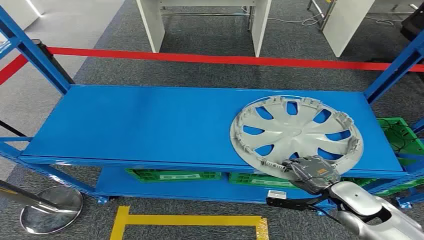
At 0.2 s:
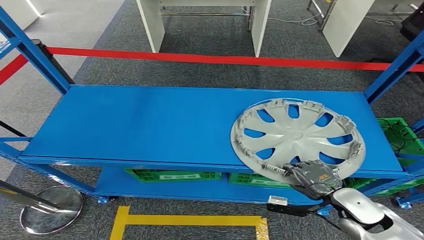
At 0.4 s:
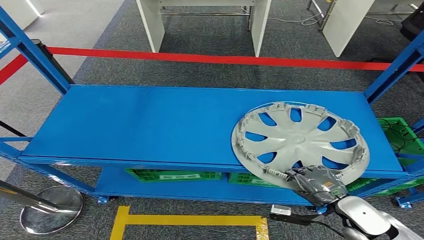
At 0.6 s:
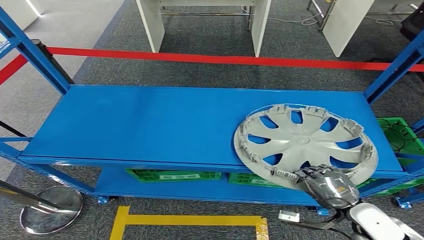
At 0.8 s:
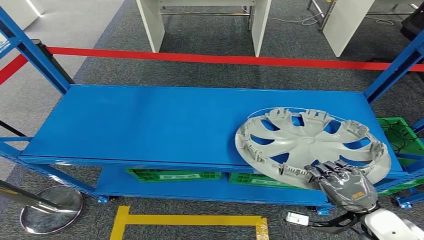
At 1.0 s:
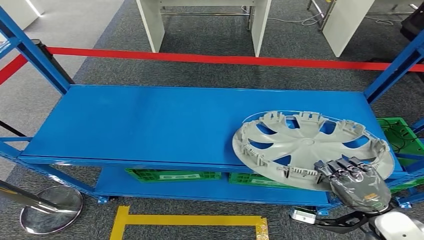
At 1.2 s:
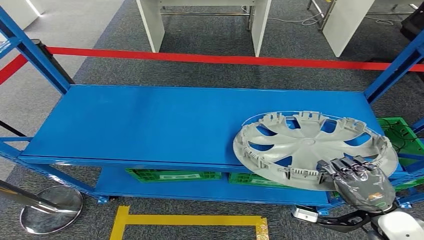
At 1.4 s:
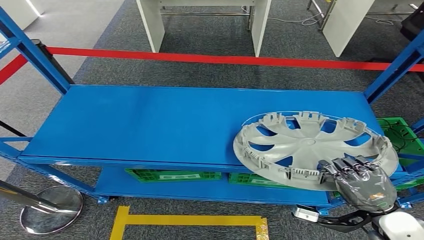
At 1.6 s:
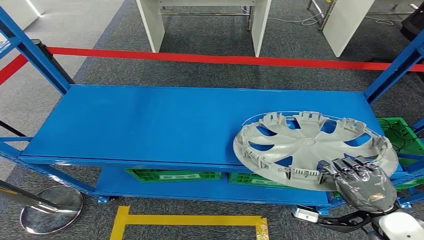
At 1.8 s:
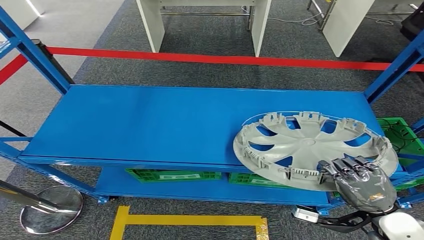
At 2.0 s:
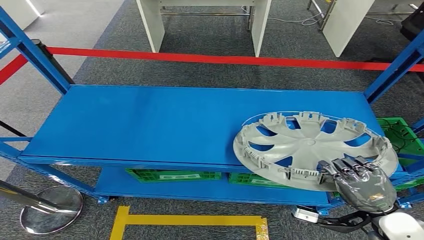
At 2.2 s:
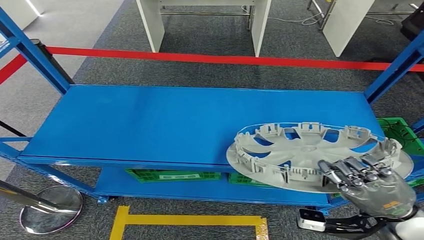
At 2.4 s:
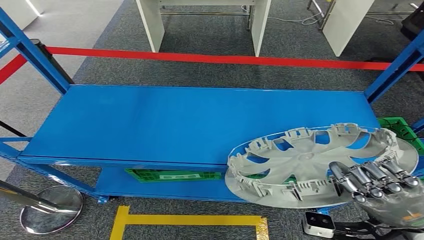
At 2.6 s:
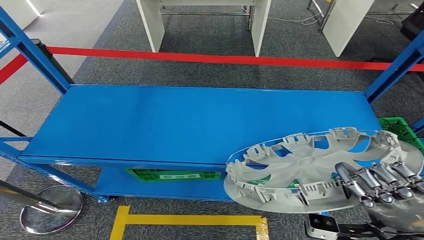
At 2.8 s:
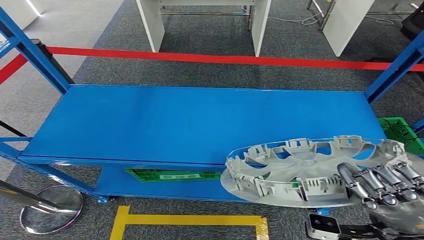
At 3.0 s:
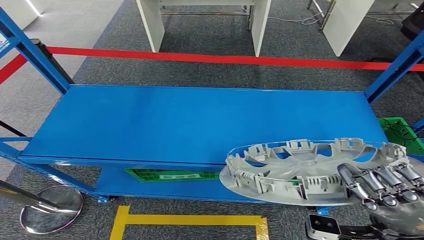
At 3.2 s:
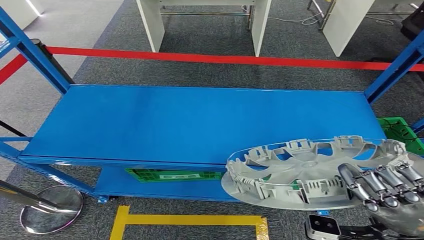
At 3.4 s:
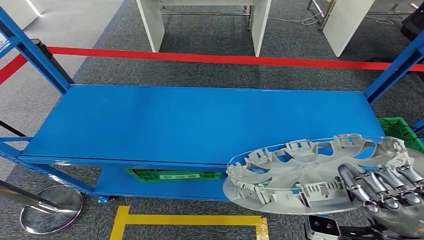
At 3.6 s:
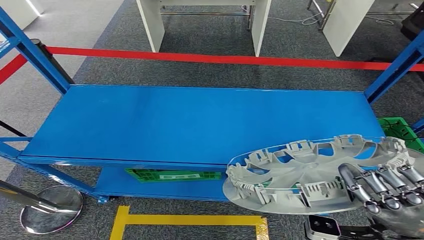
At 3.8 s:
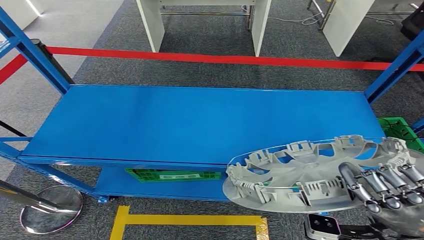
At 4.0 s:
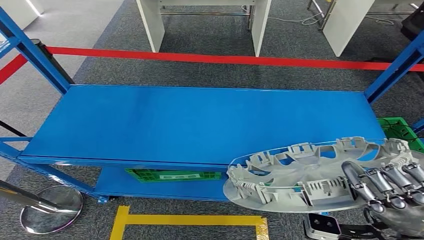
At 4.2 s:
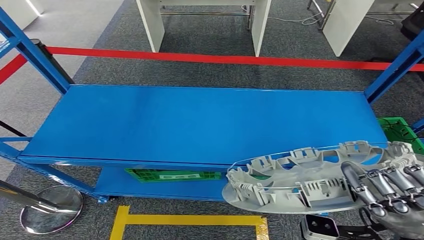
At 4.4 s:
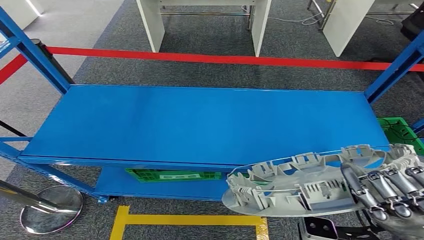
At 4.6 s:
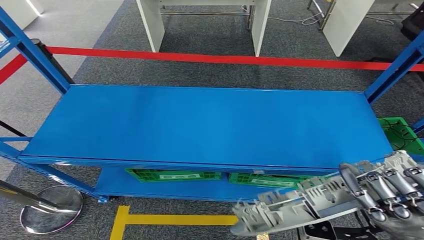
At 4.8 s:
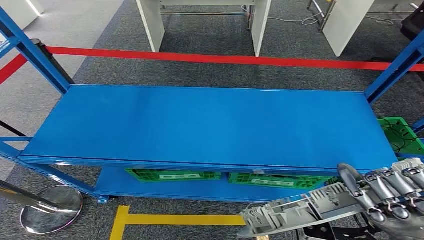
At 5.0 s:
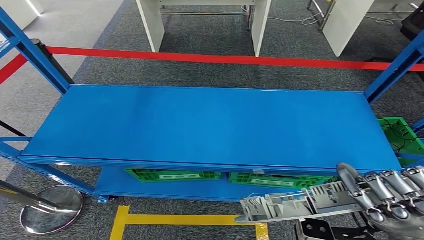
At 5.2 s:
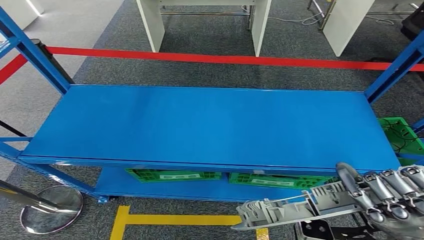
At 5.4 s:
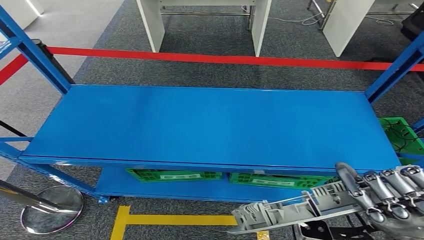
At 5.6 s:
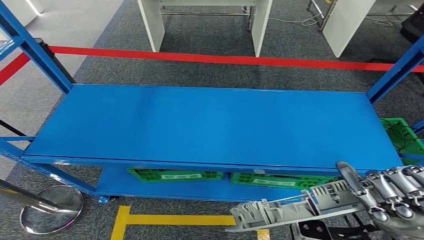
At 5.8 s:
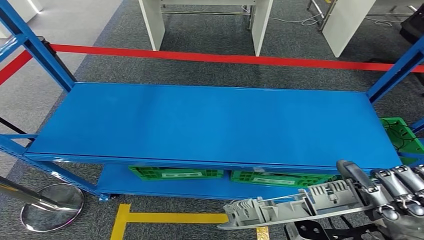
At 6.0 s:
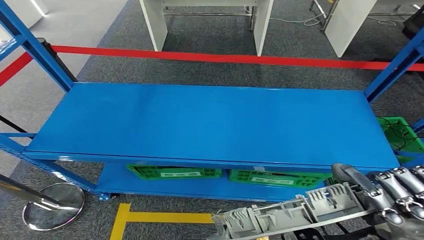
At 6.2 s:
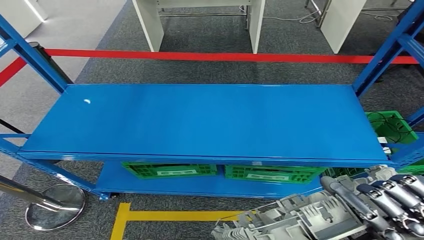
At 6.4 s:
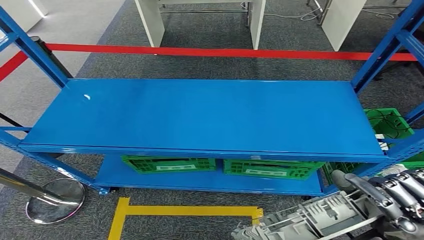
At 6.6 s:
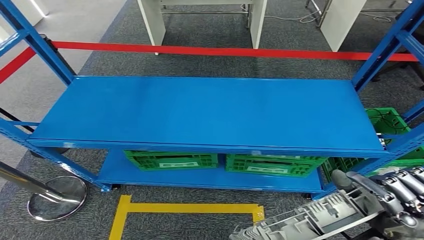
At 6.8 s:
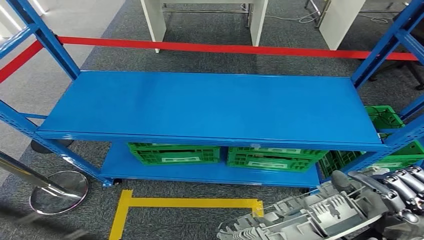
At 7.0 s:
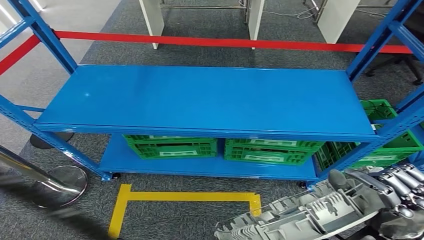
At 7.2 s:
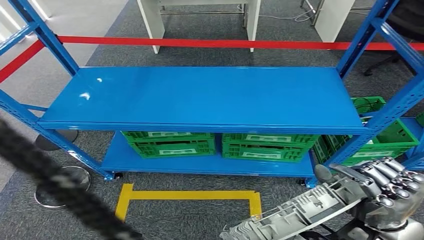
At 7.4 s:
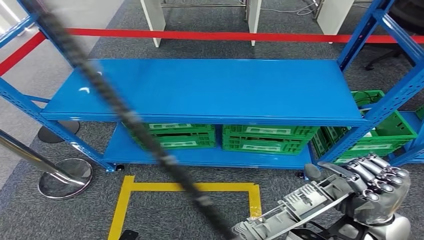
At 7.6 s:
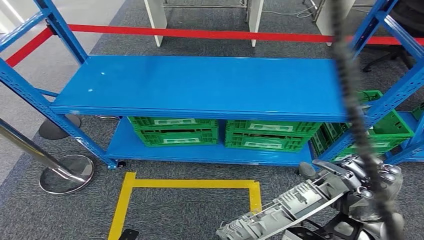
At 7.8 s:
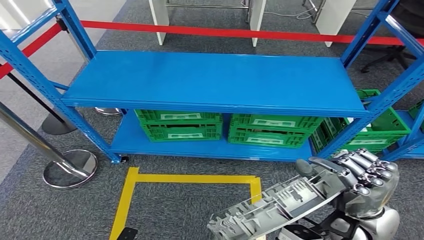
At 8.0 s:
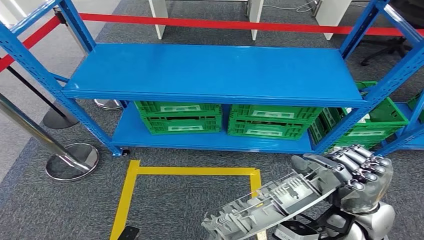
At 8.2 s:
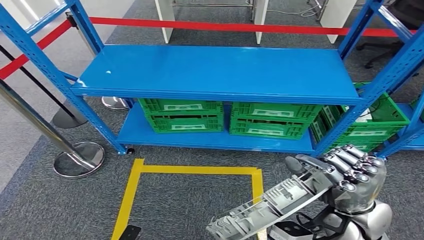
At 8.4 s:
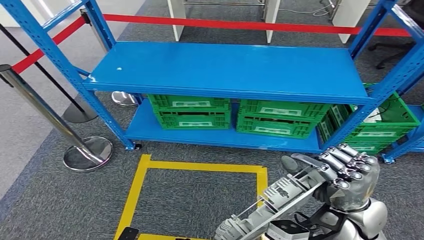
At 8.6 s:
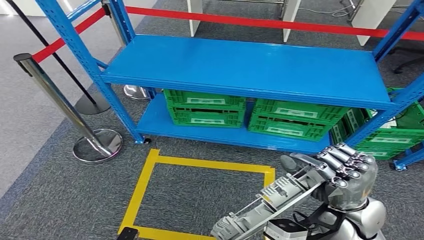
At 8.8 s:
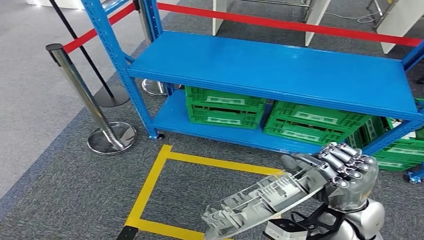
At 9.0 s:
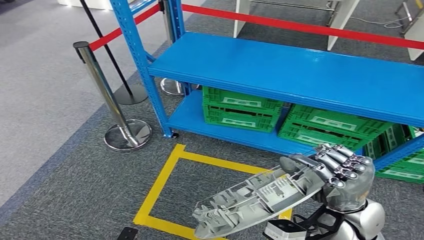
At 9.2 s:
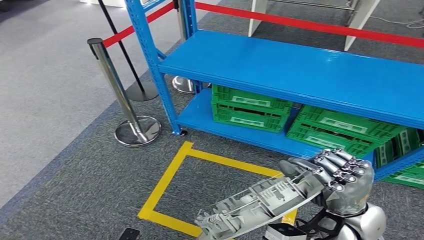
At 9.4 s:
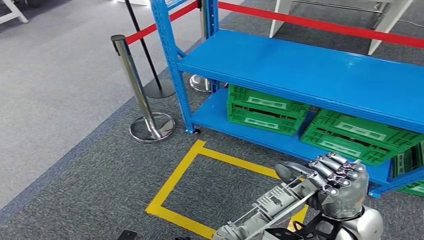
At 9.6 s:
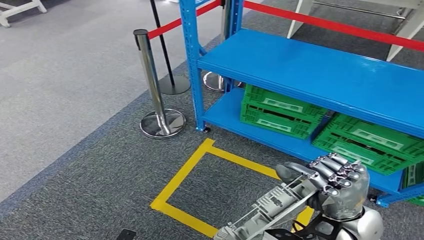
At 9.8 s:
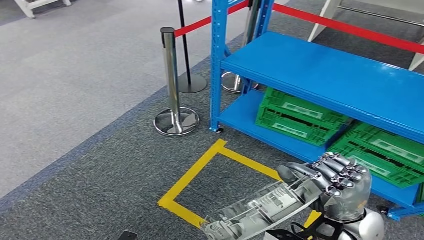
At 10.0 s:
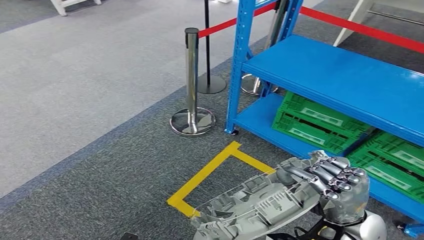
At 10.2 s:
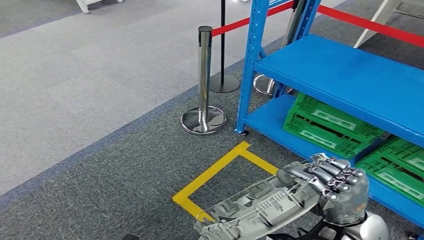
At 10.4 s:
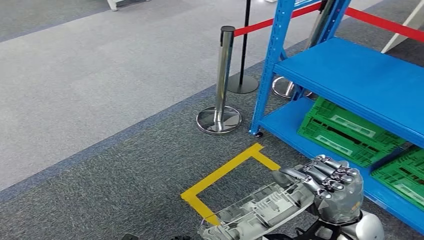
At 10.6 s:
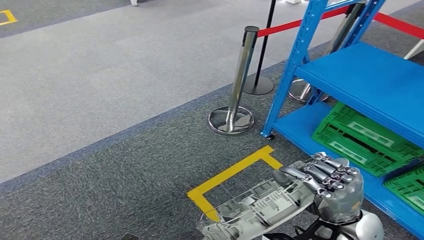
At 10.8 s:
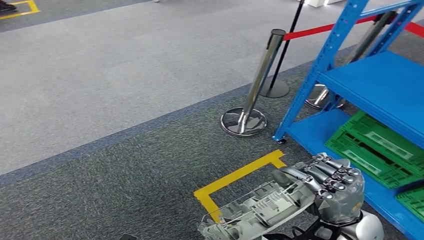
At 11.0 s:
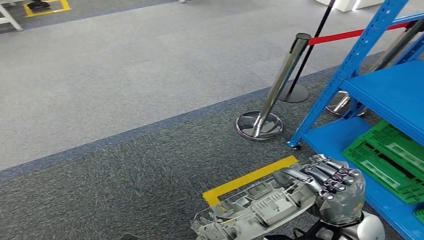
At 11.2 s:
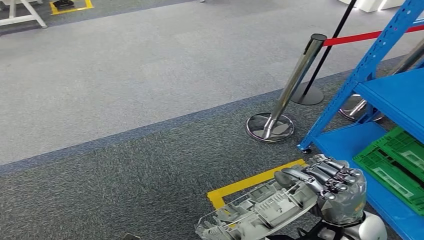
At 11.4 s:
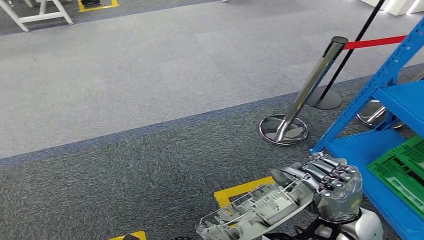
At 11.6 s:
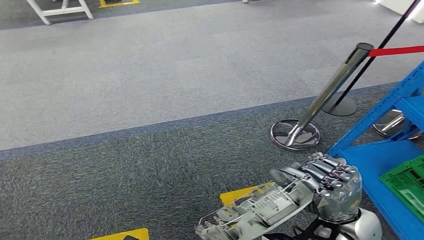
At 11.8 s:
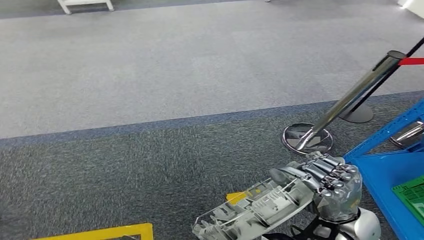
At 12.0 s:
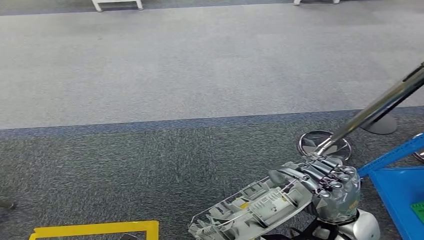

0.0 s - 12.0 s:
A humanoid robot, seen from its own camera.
Step, 0.0 s - 4.0 s: Pick up the small component from the shelf.
1.6 s - 3.0 s: The right hand travels upward by approximately 10 cm.
3.0 s - 4.4 s: There are only small adjustments of the hands.

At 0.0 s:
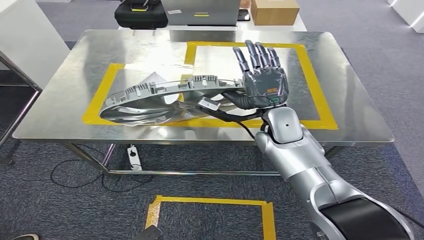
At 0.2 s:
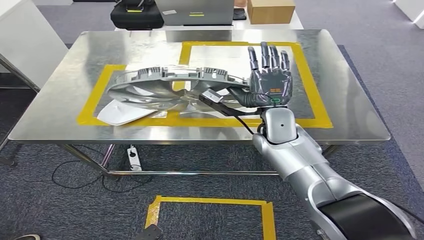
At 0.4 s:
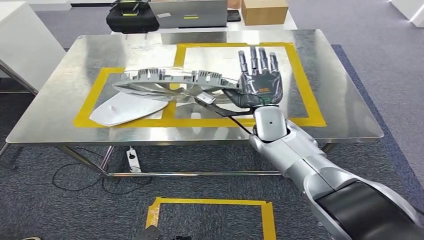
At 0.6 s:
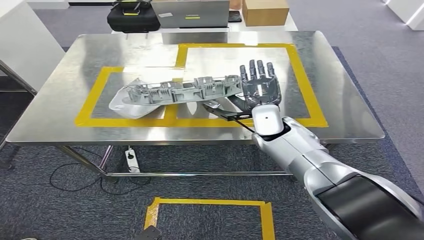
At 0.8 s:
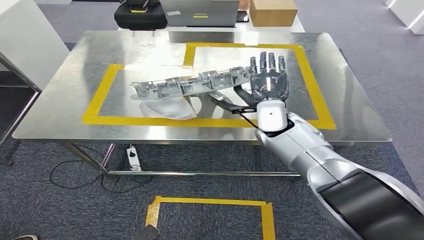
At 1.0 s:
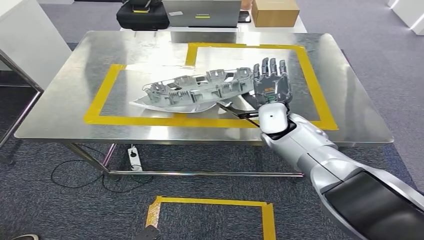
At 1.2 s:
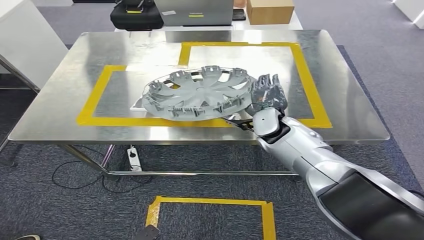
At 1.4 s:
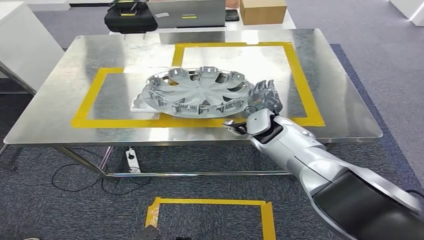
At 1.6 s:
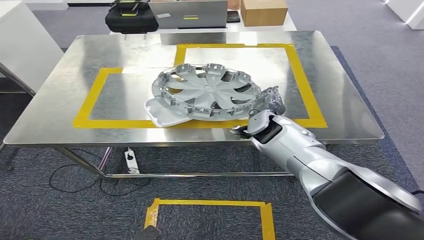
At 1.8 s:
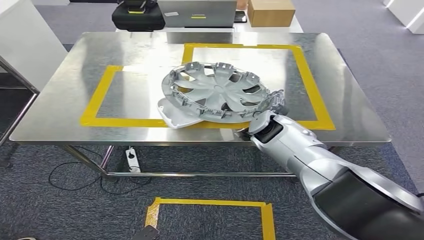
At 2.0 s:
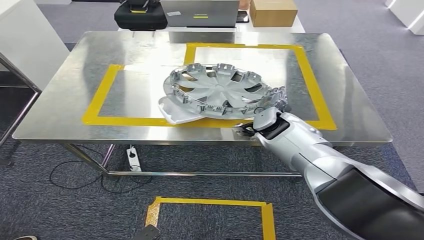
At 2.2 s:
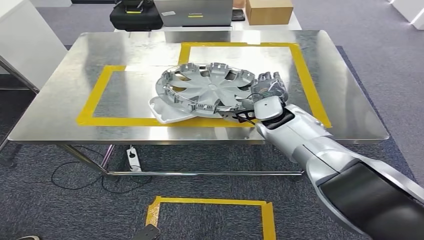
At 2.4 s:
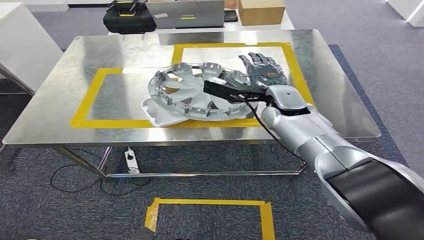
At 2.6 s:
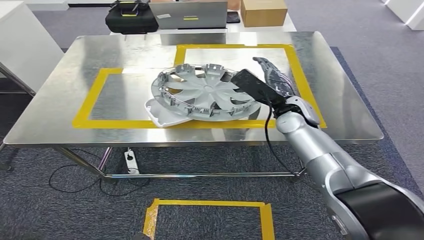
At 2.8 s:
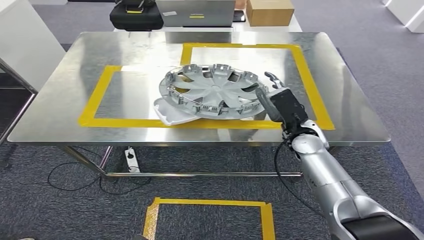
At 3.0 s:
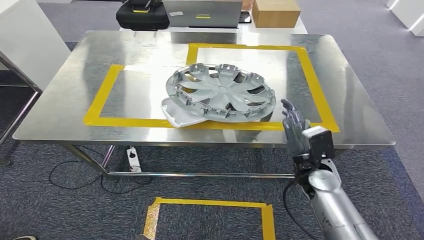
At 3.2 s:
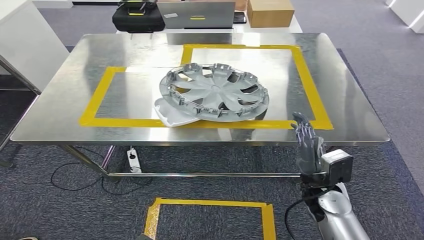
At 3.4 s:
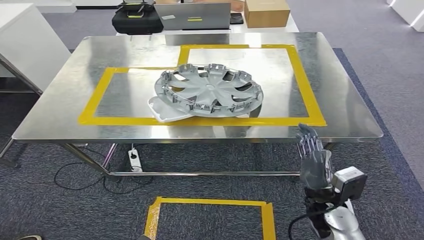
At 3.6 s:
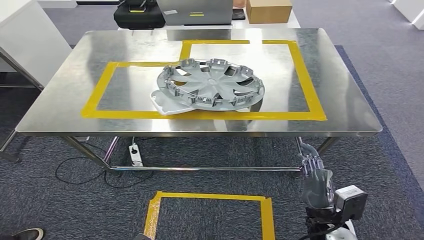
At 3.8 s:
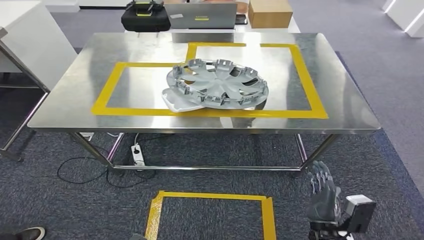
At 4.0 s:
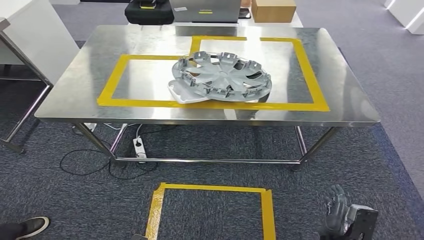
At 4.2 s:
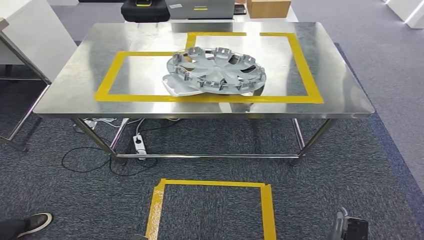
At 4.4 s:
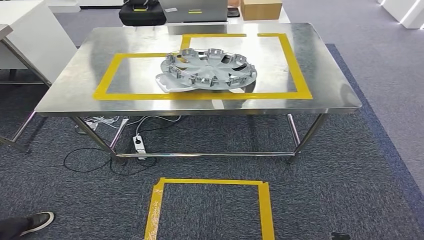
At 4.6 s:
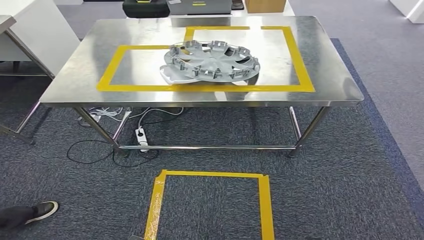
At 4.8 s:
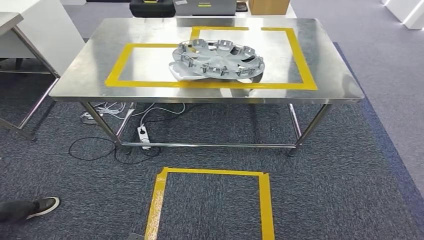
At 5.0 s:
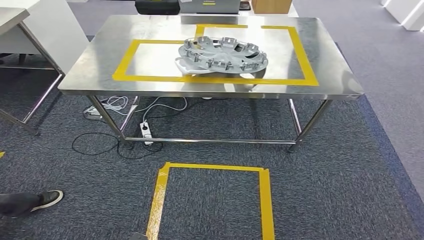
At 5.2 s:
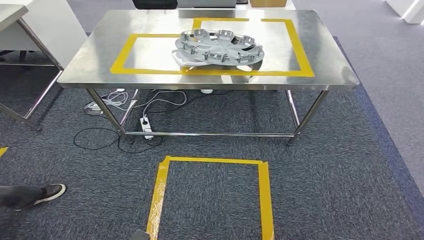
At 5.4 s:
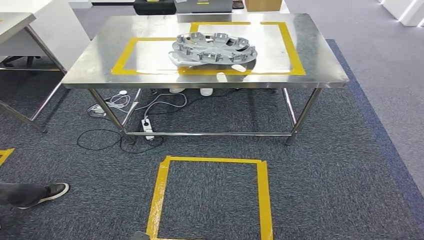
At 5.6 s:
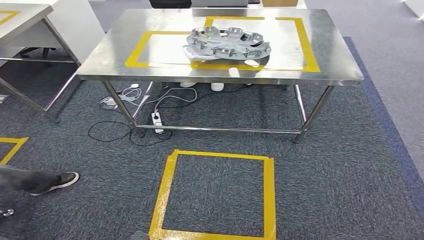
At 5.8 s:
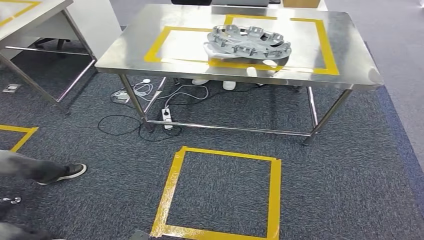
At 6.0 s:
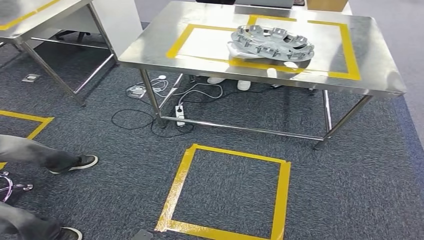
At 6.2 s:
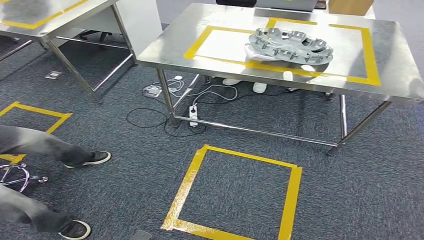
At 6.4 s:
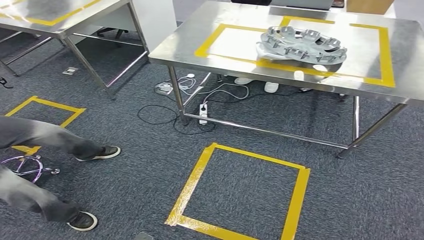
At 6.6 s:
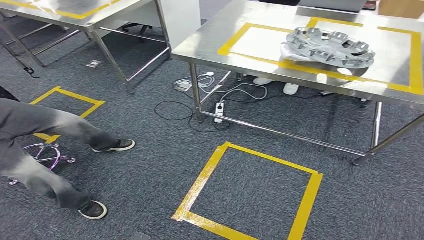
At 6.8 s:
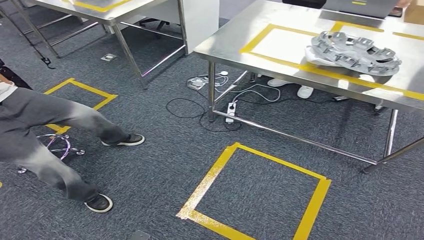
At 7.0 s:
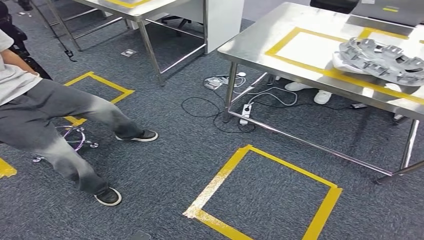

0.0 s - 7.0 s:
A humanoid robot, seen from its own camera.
Step, 0.0 s - 3.4 s: Insert the small component into the corresponding slot on the workbench.
